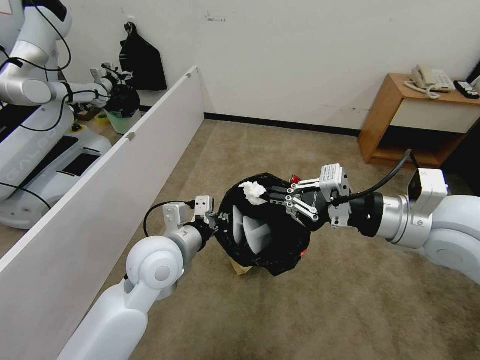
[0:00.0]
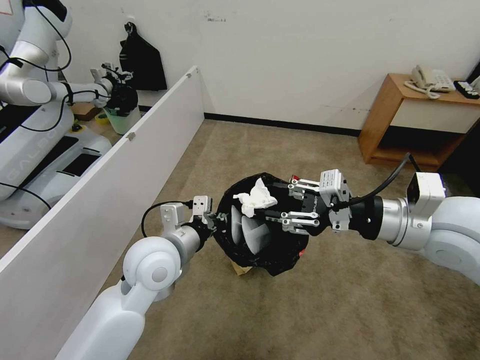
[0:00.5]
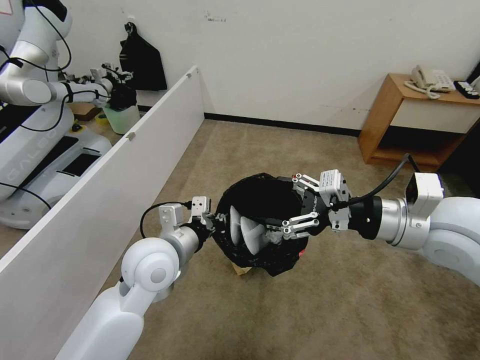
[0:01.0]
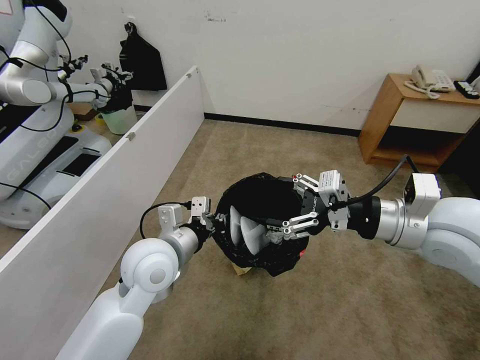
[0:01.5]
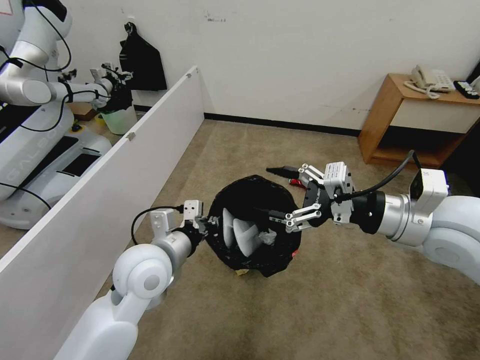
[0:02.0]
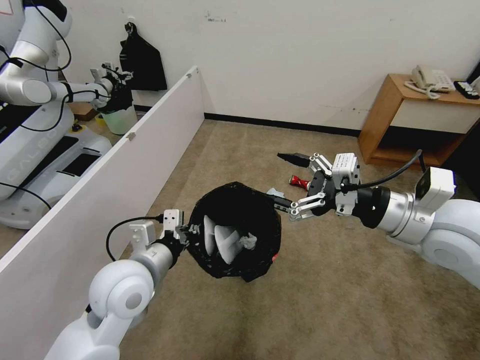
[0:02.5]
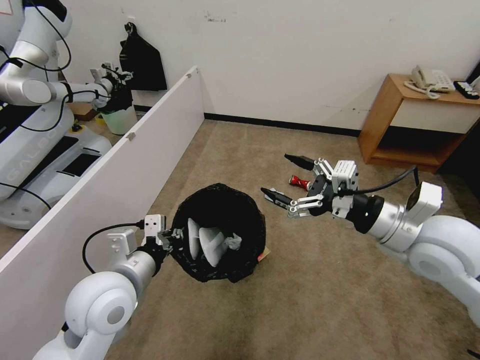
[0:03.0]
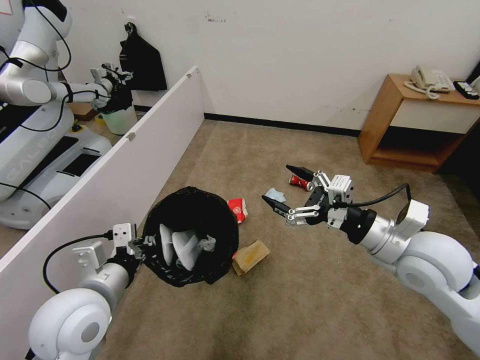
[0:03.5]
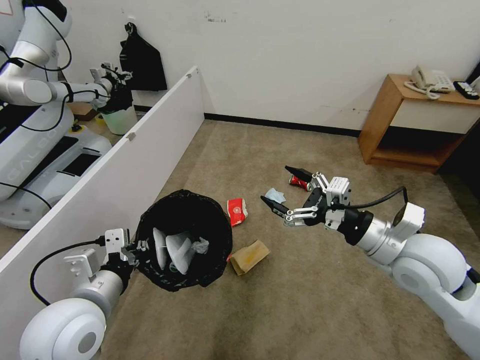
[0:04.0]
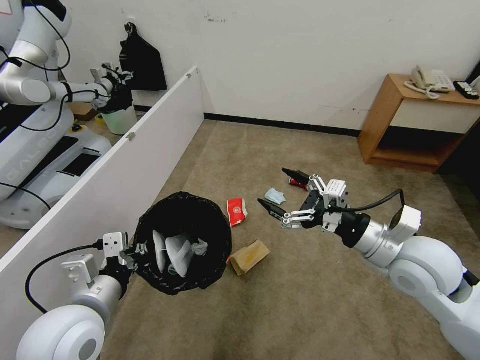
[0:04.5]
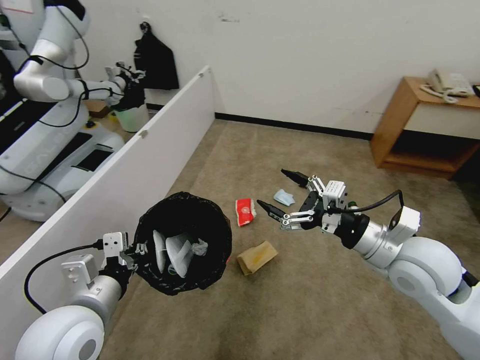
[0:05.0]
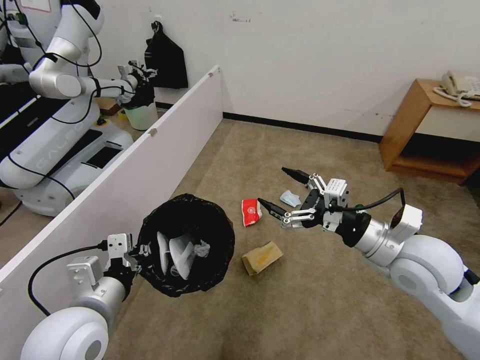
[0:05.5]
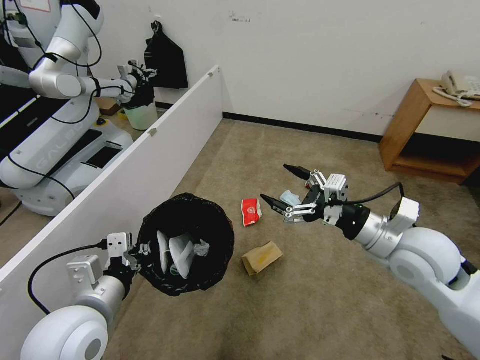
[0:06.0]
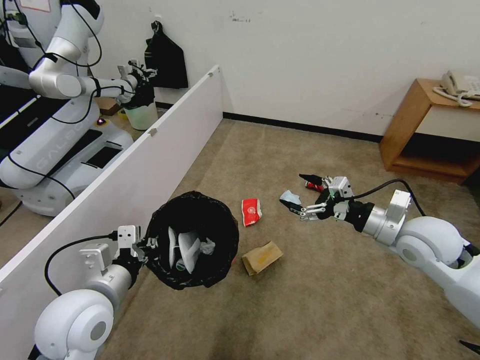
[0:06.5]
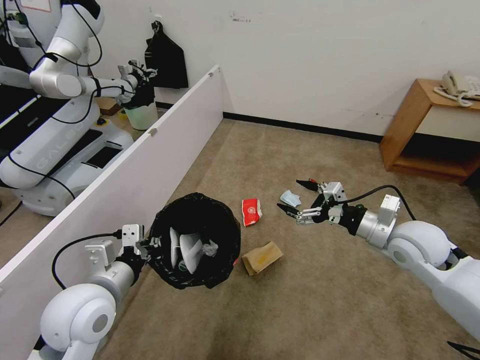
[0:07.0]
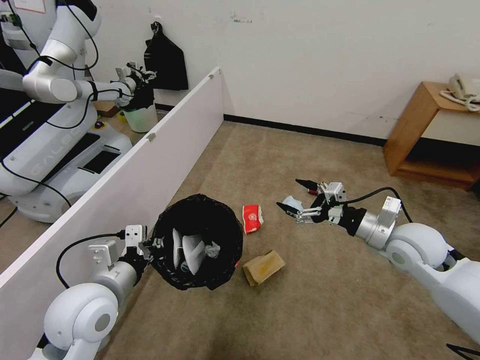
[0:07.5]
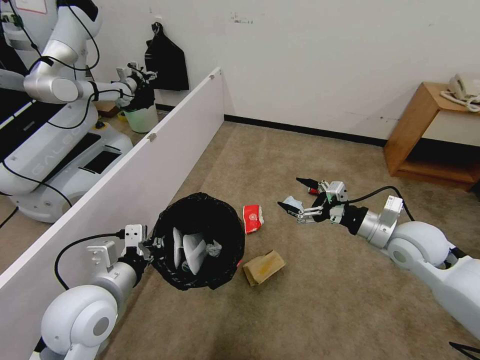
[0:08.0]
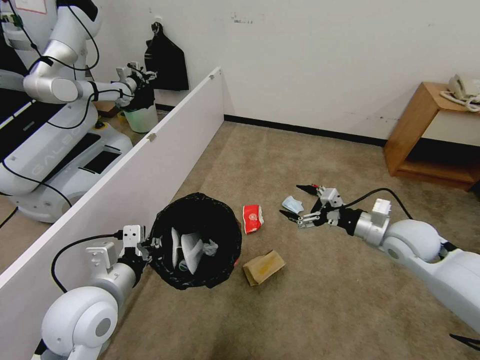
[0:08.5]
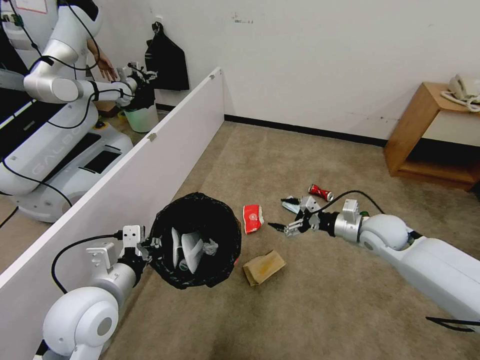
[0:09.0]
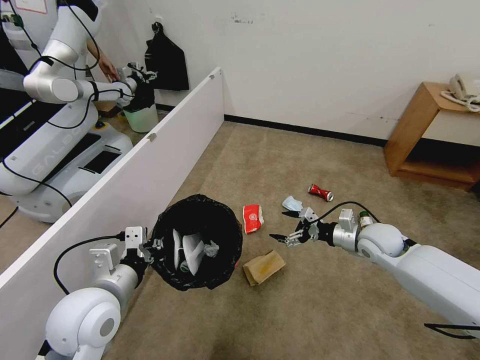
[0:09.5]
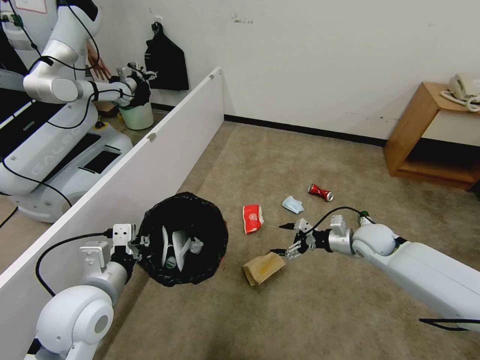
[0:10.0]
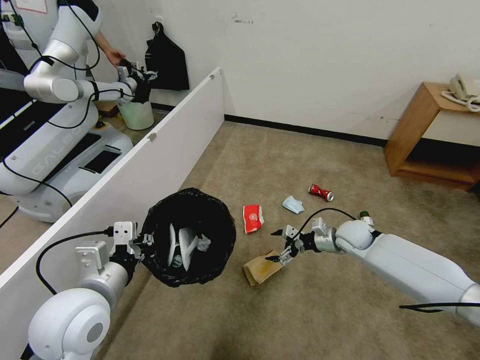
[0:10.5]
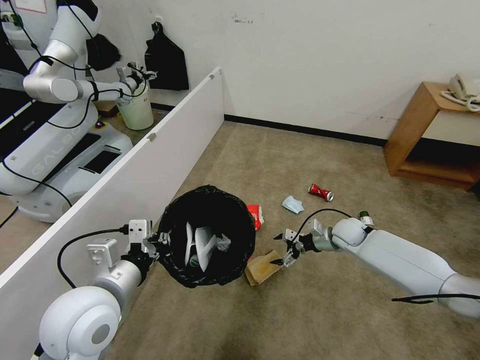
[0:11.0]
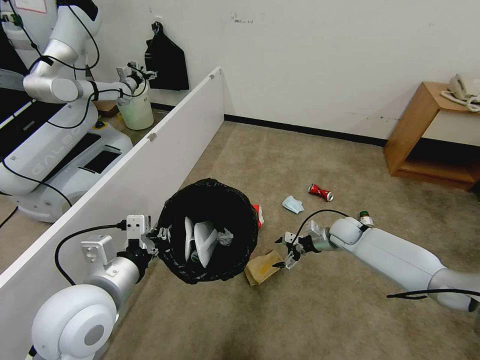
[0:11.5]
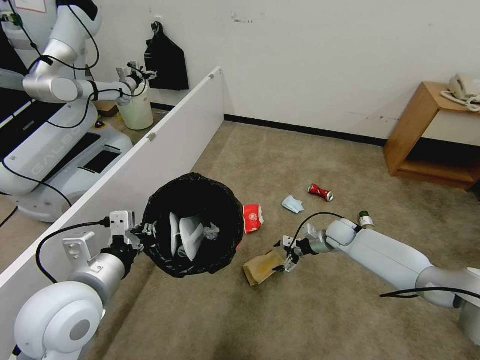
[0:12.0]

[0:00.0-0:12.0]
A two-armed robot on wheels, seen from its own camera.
Task of the whole recording: Pick up the trash bin and place the garbage on the floor into it.
0.0 to 2.0 s: The right gripper opens.
2.0 to 4.0 s: The right gripper heads downward, covering roughly 10 cm. The left gripper moves backward and to the left, roughly 15 cm.
6.0 to 8.0 s: The right gripper shifts approximately 10 cm forward and to the right.
8.0 to 10.0 s: The right gripper shifts some 15 cm downward and forward.
10.0 to 12.0 s: The right gripper shifts roughly 10 cm downward and forward.

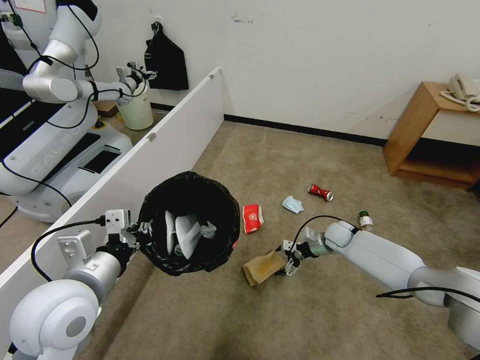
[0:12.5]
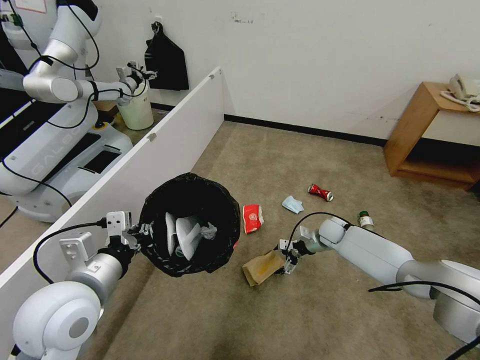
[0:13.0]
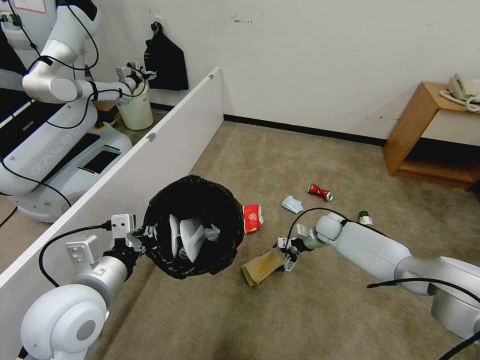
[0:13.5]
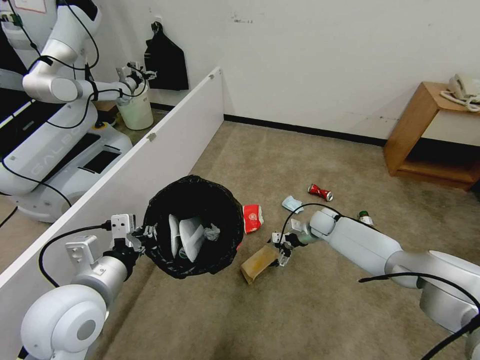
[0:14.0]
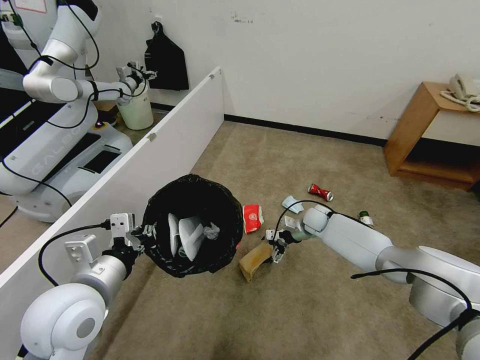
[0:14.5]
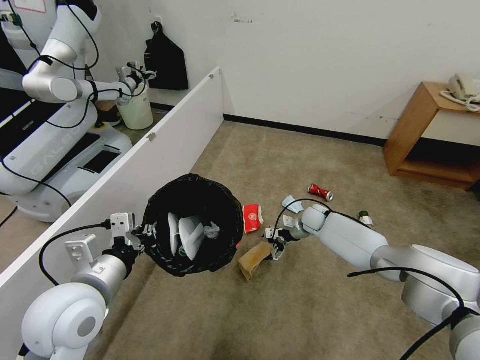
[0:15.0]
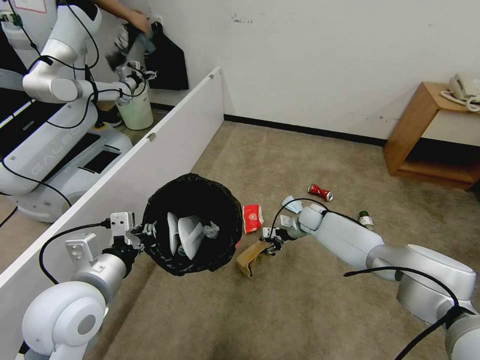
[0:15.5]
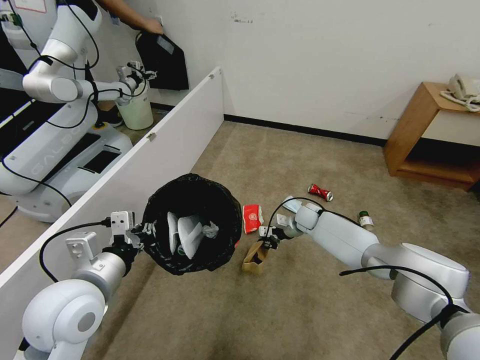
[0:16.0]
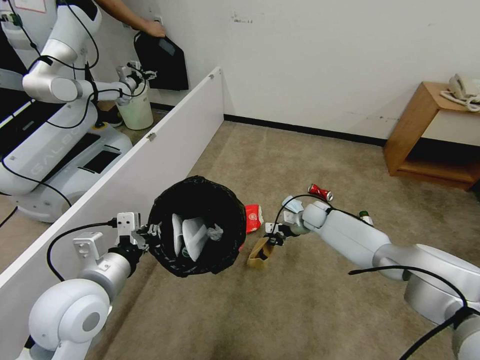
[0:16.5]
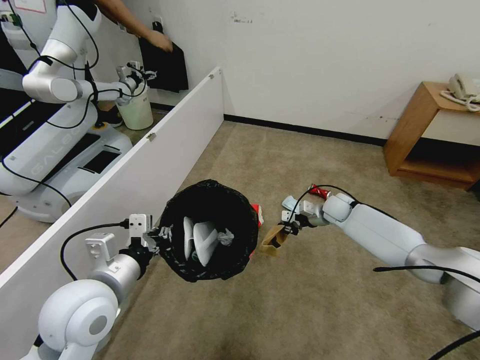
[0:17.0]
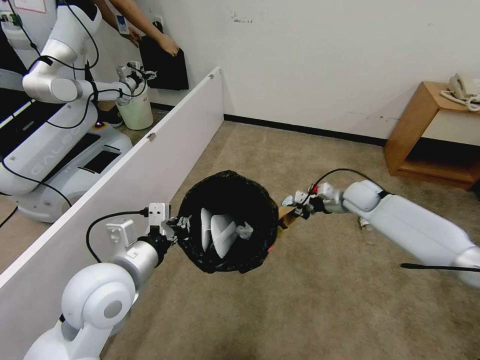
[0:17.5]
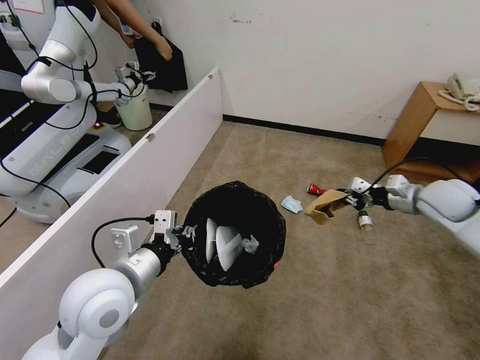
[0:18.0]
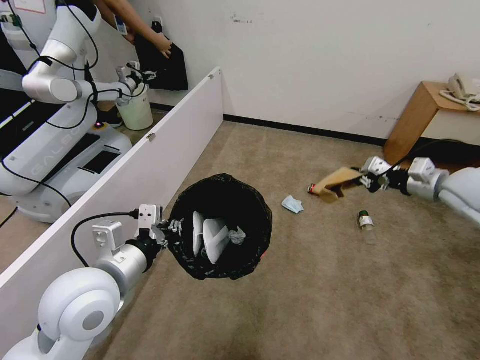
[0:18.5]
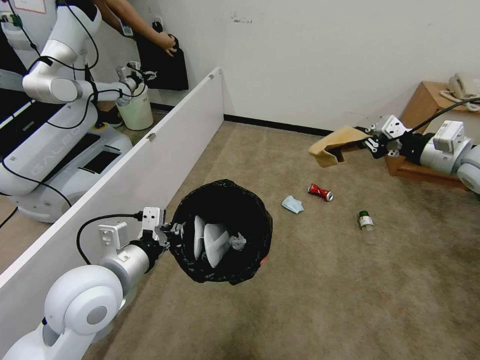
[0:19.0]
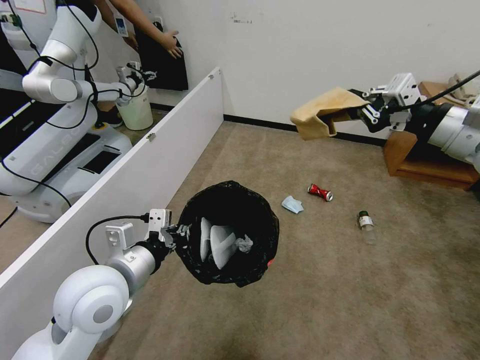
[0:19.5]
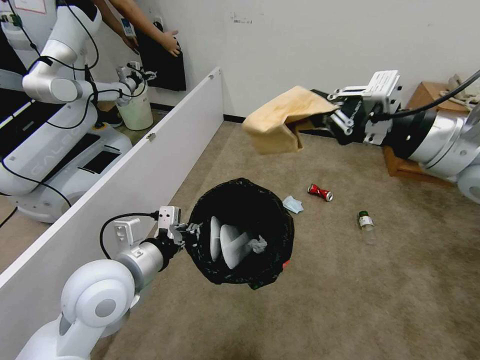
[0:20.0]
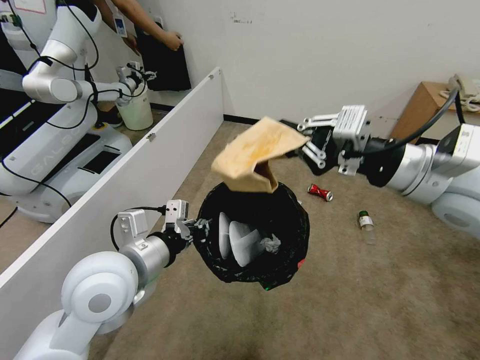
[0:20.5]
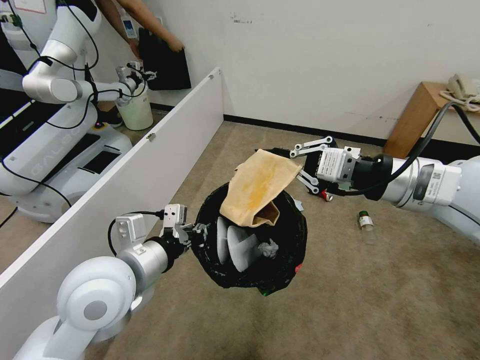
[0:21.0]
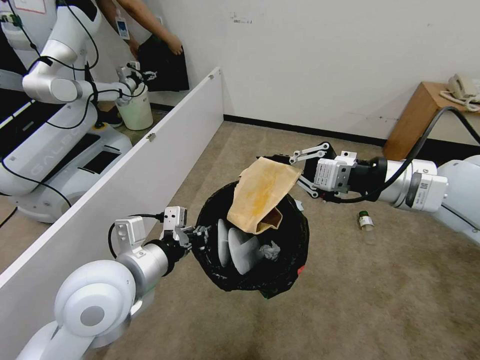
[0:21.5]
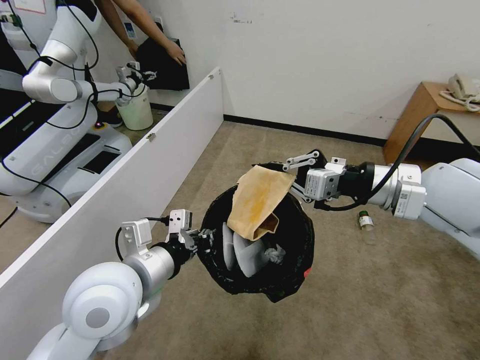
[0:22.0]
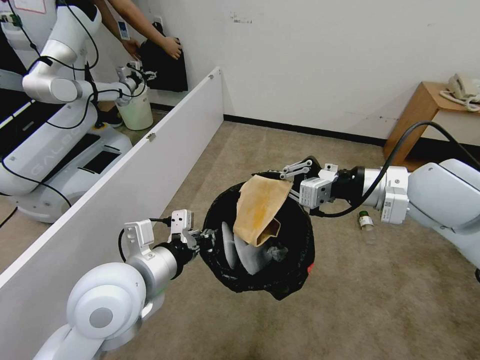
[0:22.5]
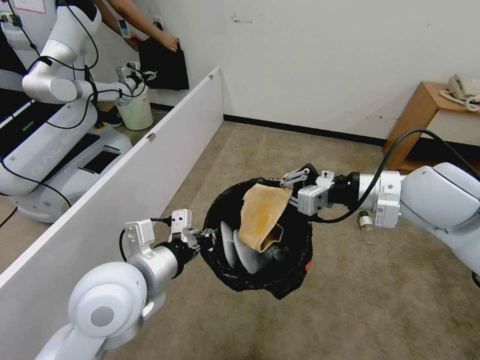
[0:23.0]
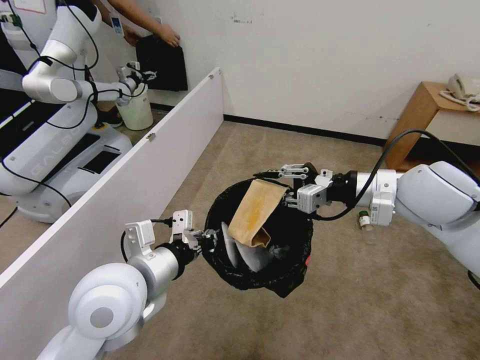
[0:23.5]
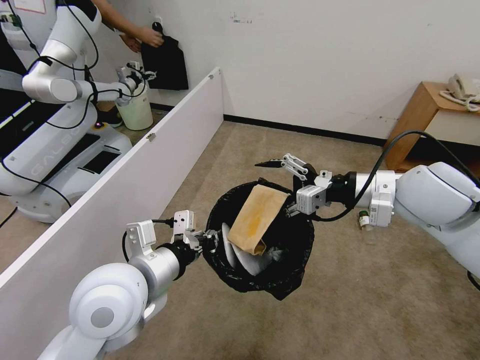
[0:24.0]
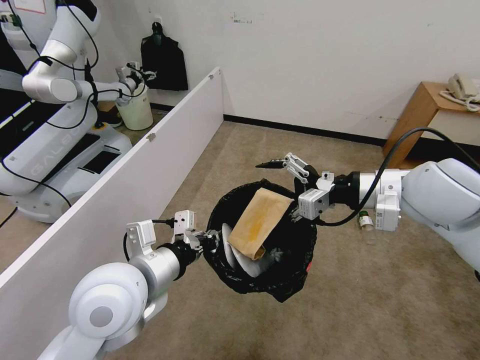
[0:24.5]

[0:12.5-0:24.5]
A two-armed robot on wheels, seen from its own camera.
Task of the whole recording: Pick up the trash bin and place the garbage on the floor into it.
12.5 to 14.5 s: The right gripper travels to the left by roughly 5 cm.
14.5 to 16.5 s: The right gripper closes up.
16.5 to 18.5 s: The right gripper goes roughly 35 cm upward, to the right and backward.
18.5 to 20.5 s: The right gripper shifts approximately 25 cm to the left, backward and upward.
20.5 to 22.5 s: The right gripper moves approximately 5 cm.
22.5 to 24.5 s: The right gripper opens its fingers.

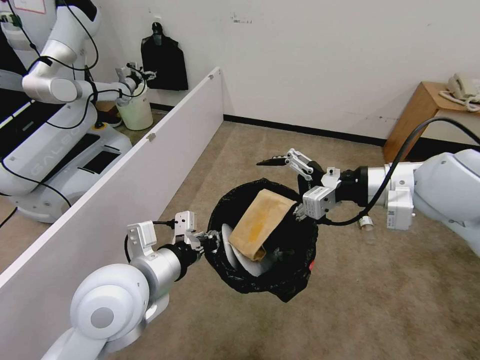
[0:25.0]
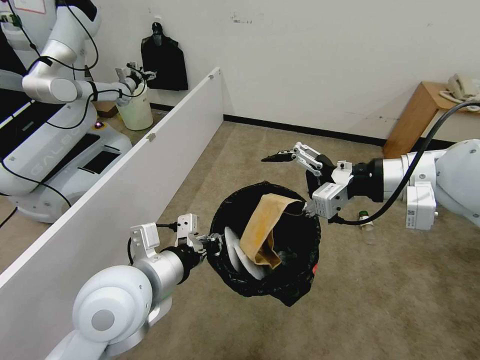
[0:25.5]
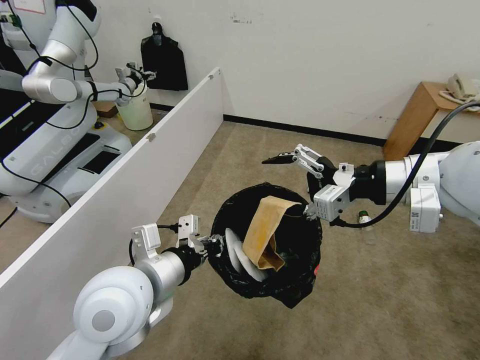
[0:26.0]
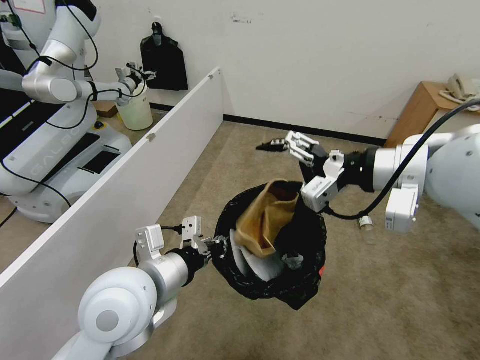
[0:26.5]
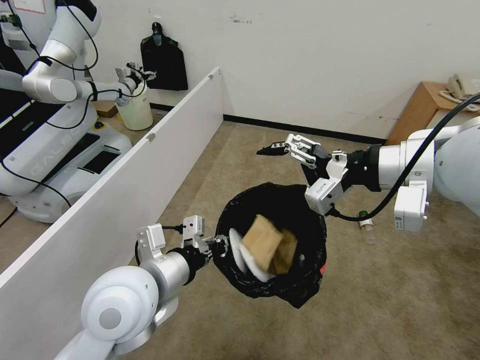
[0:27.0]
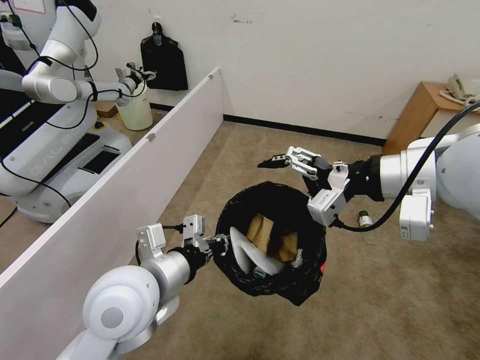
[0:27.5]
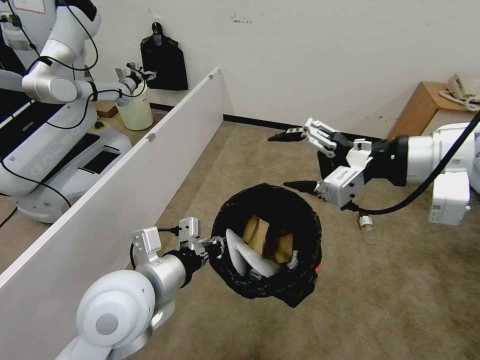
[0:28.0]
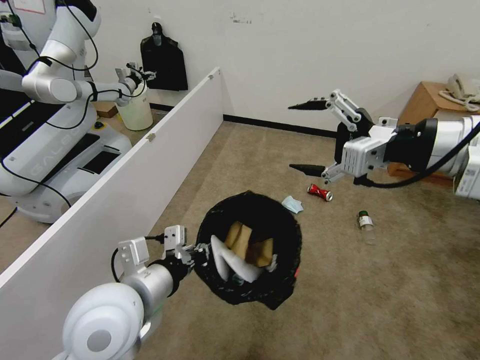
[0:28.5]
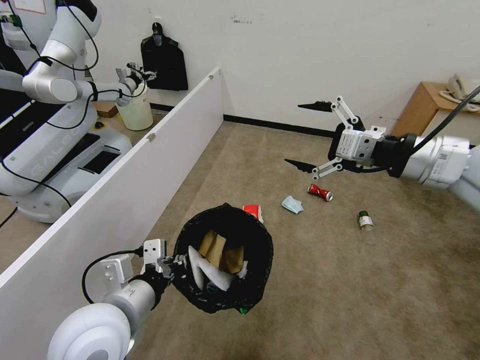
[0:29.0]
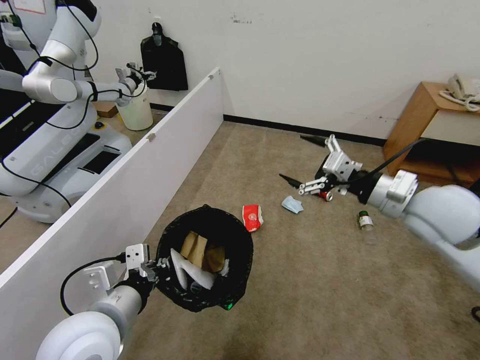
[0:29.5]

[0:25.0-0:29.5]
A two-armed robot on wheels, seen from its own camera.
Task of the whole recording: Pick up the trash bin and place the garbage on the floor into it.
25.0 to 27.0 s: The right gripper shifts roughly 5 cm upward.
27.0 to 29.5 s: The right gripper goes some 15 cm downward; the left gripper moves to the left, roughly 5 cm.
